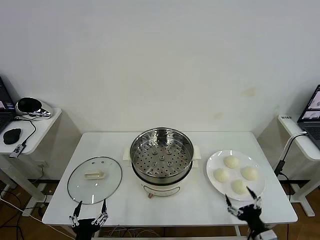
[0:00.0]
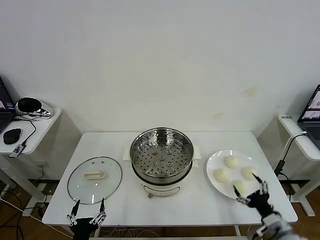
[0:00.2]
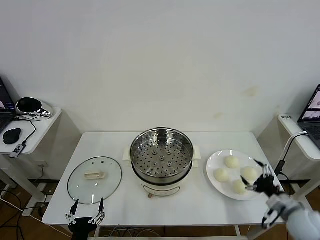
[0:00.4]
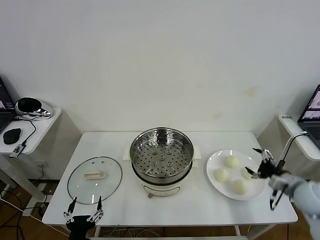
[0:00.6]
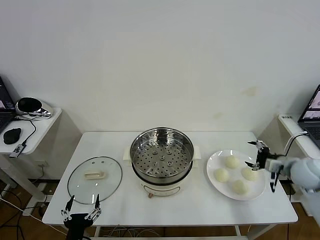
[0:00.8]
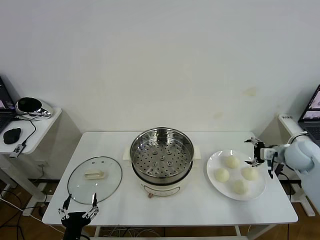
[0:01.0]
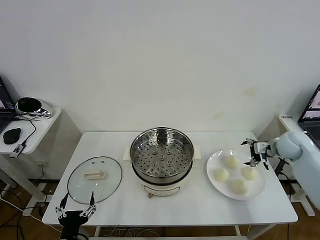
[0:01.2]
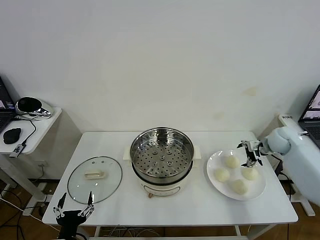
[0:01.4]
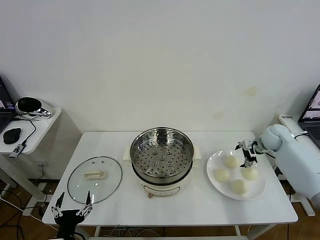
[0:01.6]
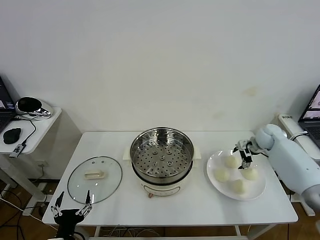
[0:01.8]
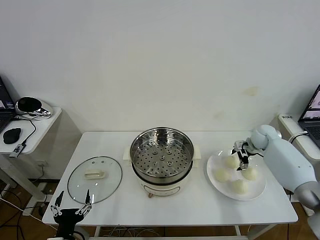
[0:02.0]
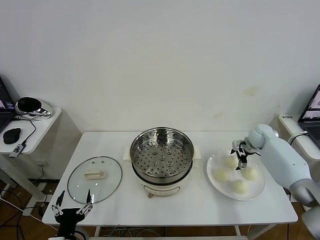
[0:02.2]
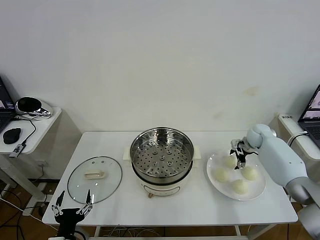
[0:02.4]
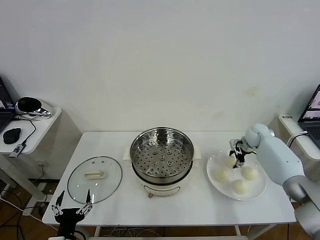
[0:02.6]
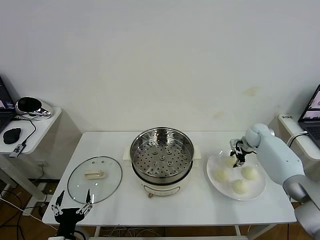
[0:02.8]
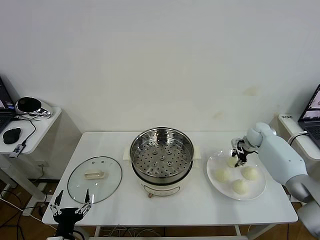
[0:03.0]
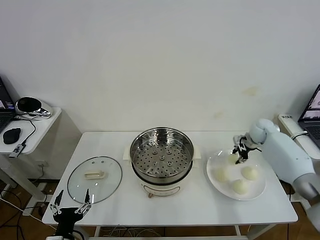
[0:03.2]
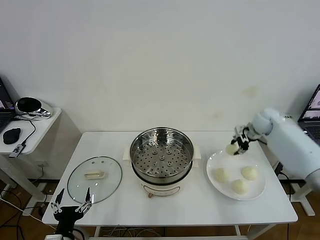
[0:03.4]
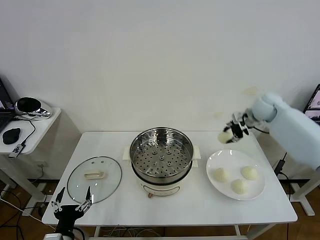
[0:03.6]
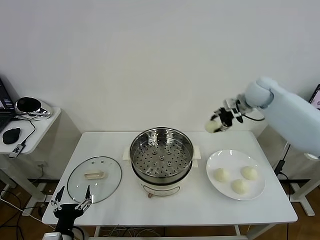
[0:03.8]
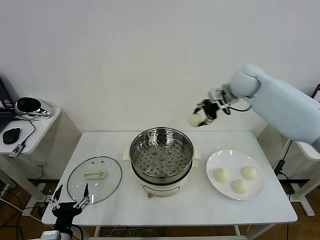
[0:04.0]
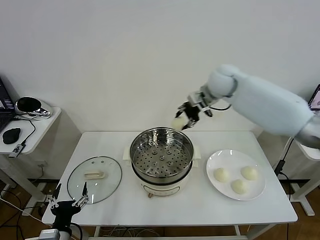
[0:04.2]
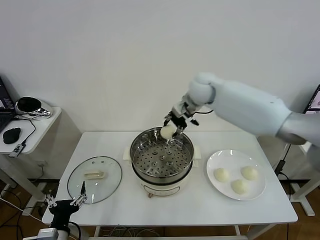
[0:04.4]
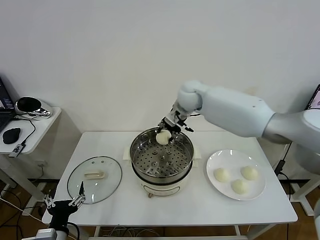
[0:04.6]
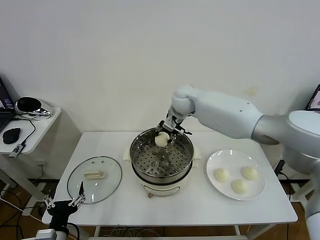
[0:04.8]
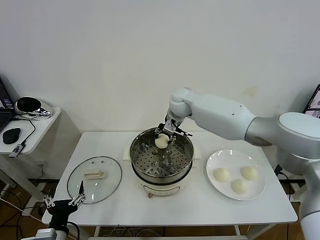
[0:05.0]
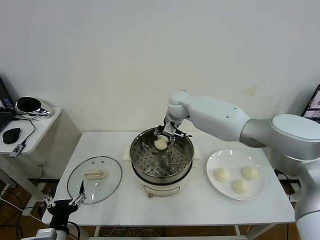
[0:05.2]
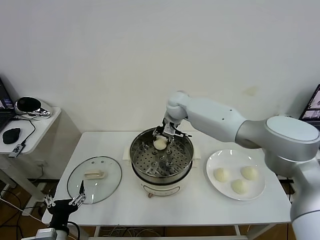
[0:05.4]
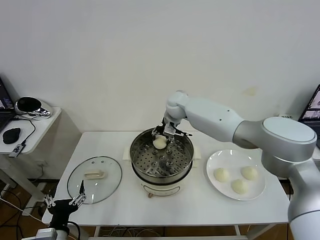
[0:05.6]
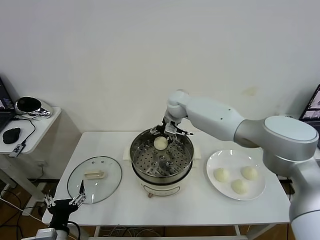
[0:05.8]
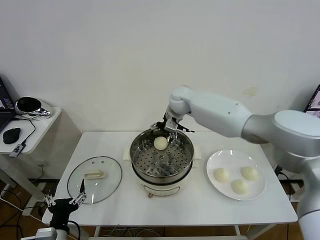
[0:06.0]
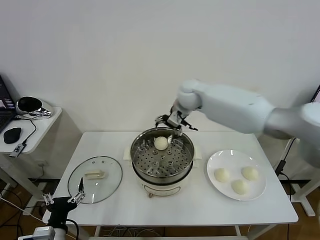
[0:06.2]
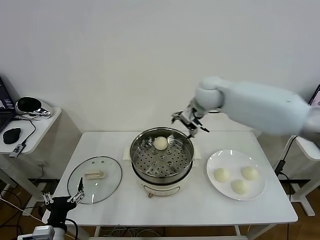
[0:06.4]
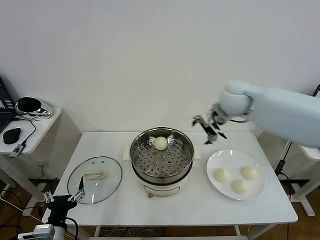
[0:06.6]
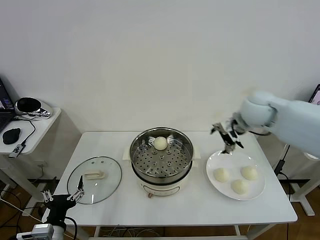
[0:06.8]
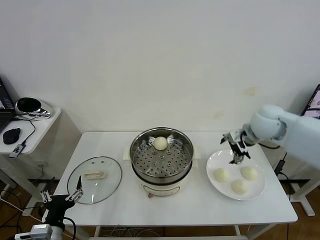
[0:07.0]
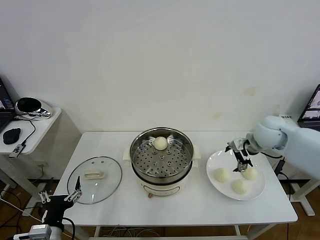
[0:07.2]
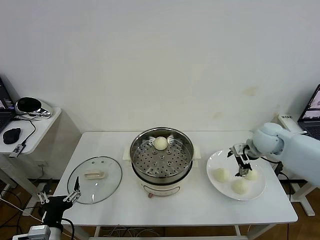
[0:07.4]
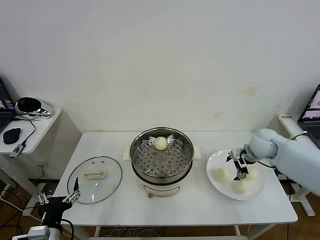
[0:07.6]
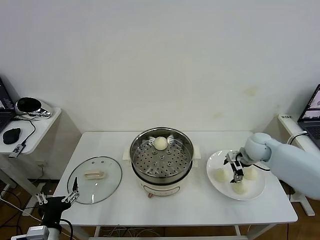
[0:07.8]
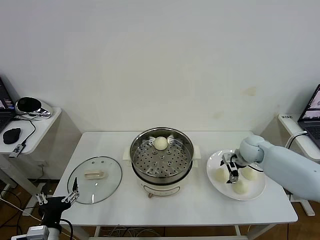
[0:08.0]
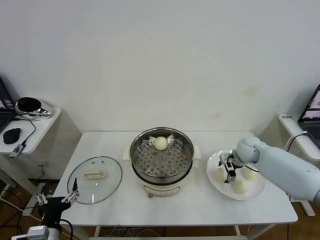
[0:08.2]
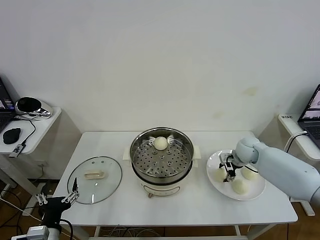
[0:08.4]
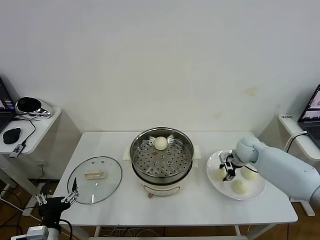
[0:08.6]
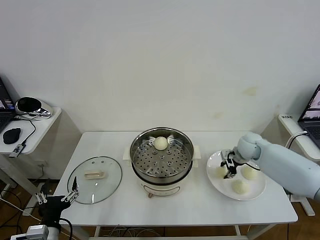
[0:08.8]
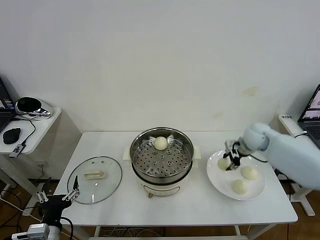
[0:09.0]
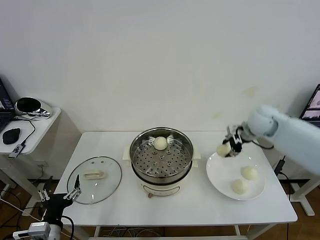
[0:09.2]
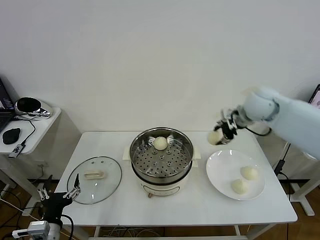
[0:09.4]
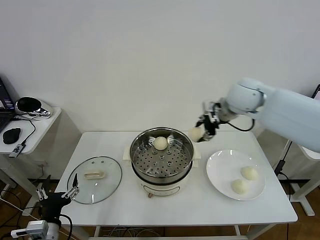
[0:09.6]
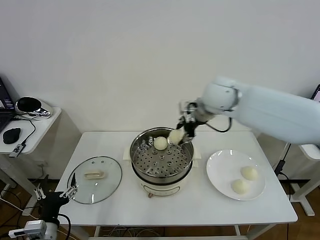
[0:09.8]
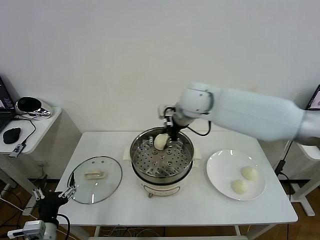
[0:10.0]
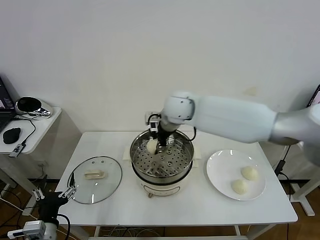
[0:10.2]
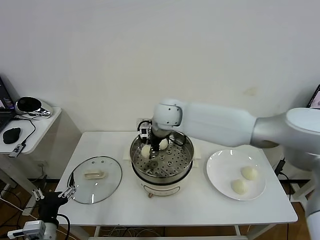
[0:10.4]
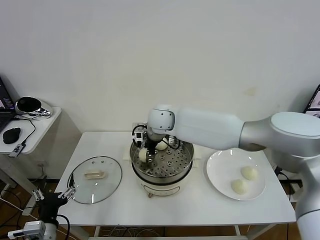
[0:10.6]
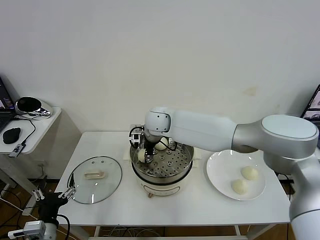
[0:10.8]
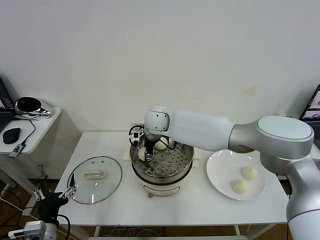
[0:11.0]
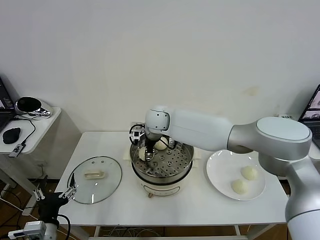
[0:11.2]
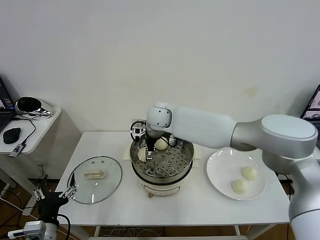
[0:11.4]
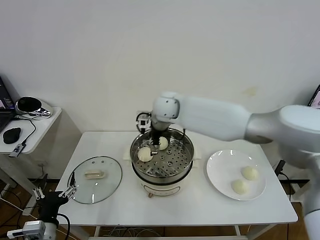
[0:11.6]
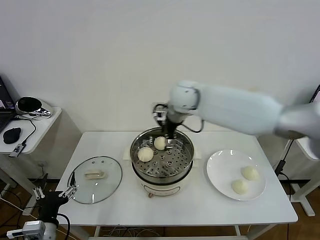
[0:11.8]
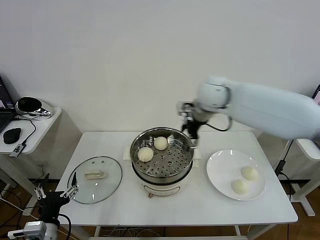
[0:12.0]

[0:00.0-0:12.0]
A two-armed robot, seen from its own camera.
Task of the whole recording: take steamed baozi put them in steamer then cover it.
Step, 0.0 to 2.8 s: Grasp the baozi in the plate with right gripper.
Step, 3.0 to 5.8 s: Place the baozi on the steamer with right gripper.
Step, 6.0 to 8.6 s: Grasp the baozi in the plate with right gripper.
Step, 8.8 to 11.4 s: Place the baozi on the steamer with right gripper.
1.6 to 3.0 s: The right gripper closes up.
3.0 to 4.4 s: The right gripper is displaced to the left and upward by roughly 35 cm.
4.4 to 6.0 s: The right gripper opens its fingers.
6.0 to 7.6 s: The right gripper heads to the right, downward and backward, covering some 30 cm.
7.6 to 9.0 s: The right gripper ends up some 5 cm from where it was, and closes up.
9.0 to 10.4 s: The right gripper is displaced to the left by approximately 35 cm.
10.4 to 12.0 s: The right gripper travels to the right and upward by approximately 20 cm, and opens.

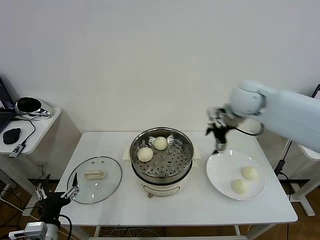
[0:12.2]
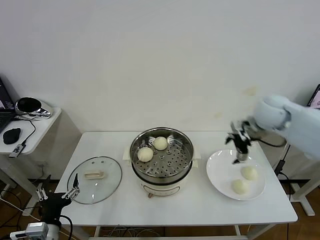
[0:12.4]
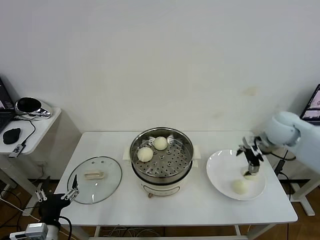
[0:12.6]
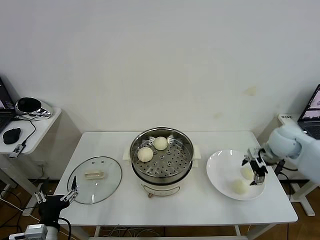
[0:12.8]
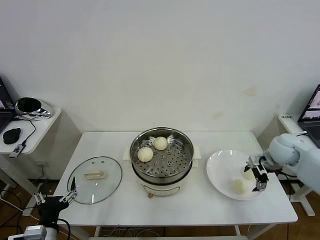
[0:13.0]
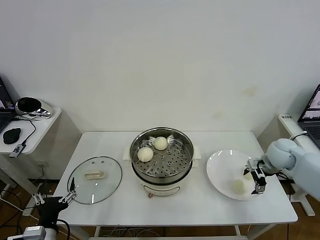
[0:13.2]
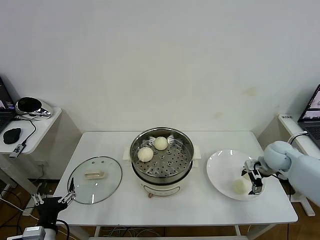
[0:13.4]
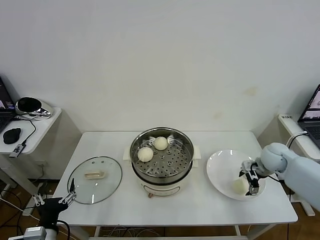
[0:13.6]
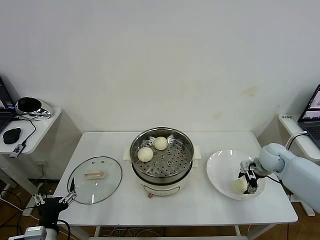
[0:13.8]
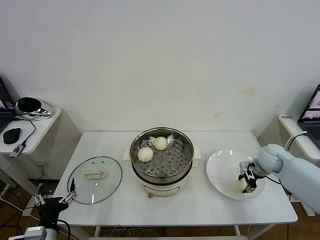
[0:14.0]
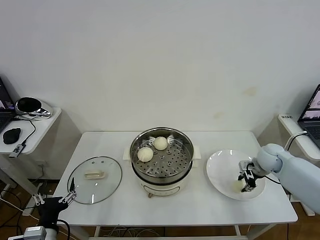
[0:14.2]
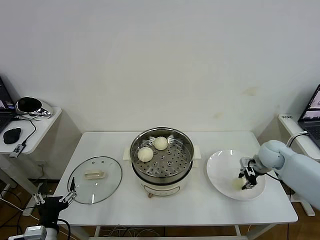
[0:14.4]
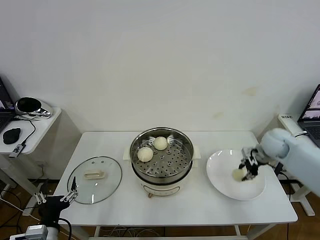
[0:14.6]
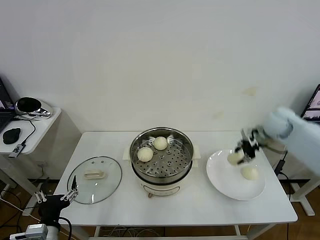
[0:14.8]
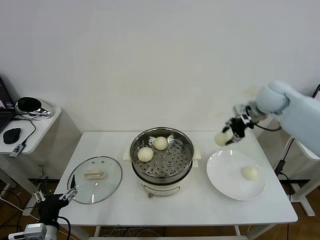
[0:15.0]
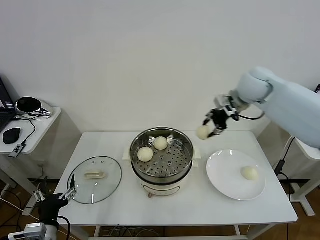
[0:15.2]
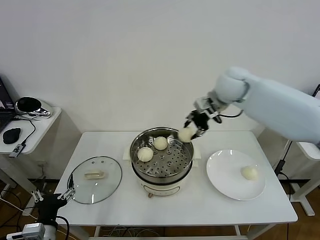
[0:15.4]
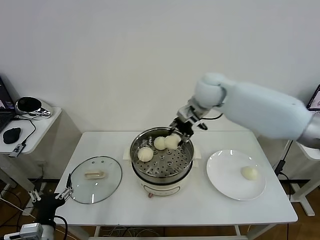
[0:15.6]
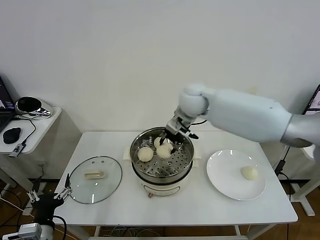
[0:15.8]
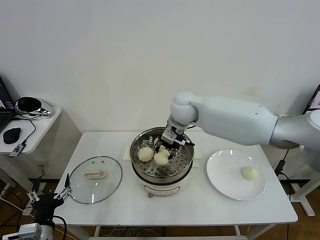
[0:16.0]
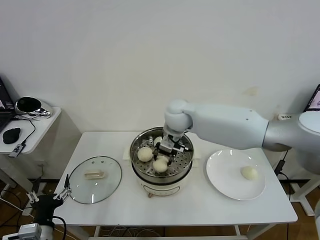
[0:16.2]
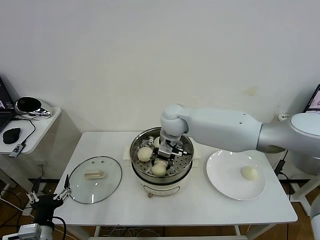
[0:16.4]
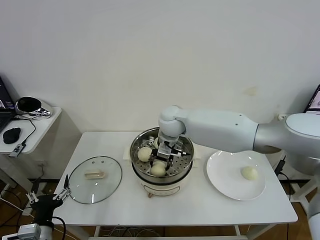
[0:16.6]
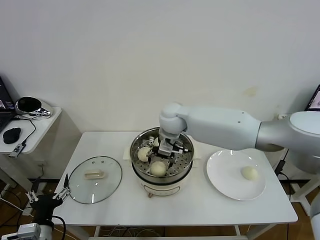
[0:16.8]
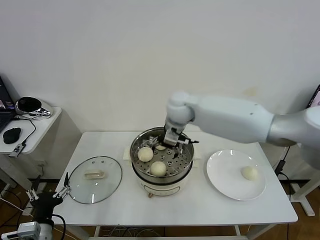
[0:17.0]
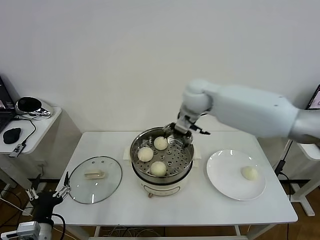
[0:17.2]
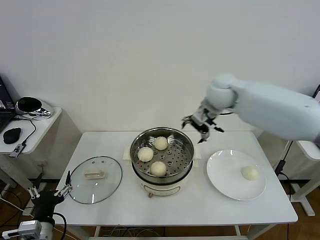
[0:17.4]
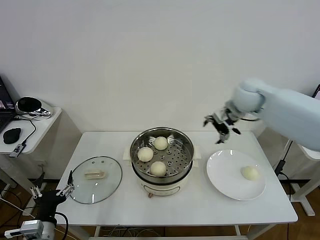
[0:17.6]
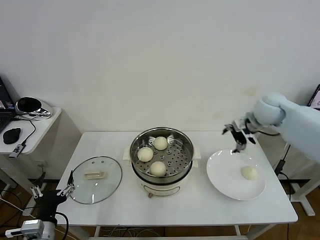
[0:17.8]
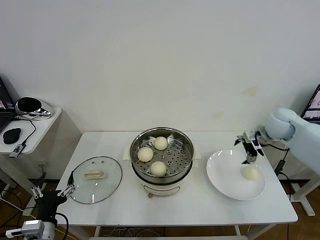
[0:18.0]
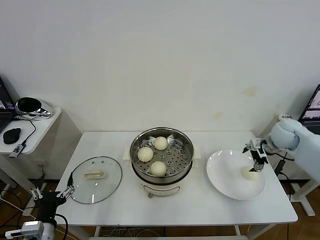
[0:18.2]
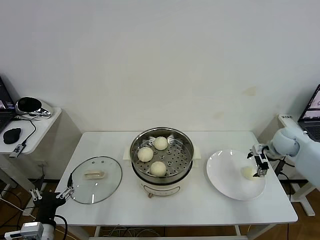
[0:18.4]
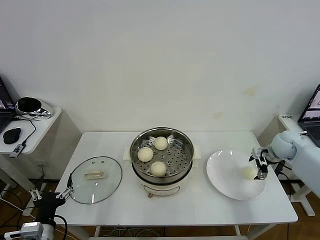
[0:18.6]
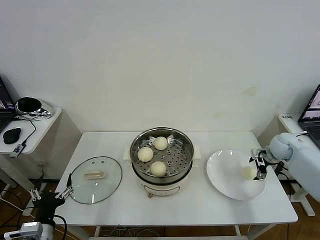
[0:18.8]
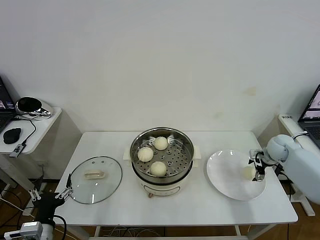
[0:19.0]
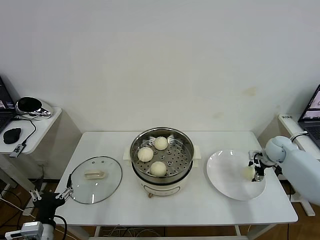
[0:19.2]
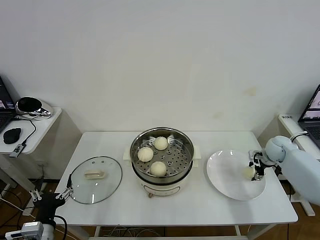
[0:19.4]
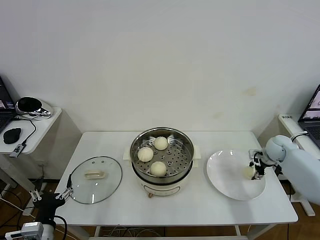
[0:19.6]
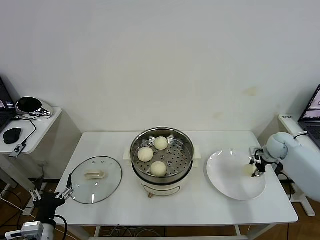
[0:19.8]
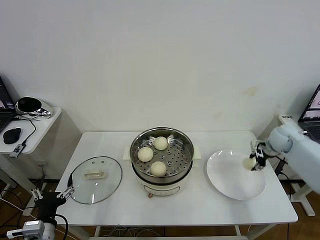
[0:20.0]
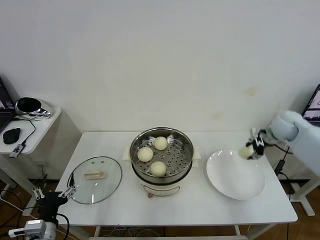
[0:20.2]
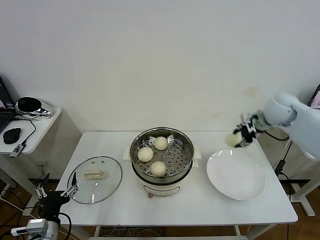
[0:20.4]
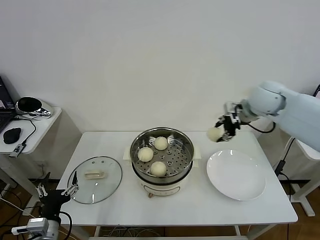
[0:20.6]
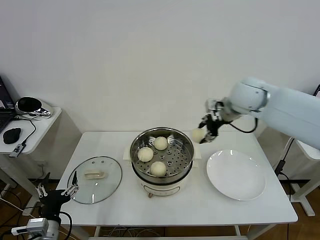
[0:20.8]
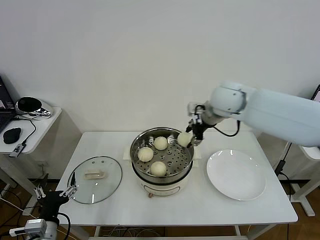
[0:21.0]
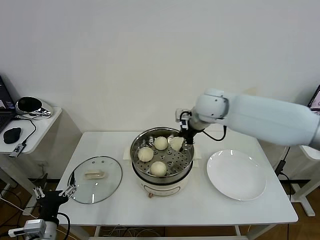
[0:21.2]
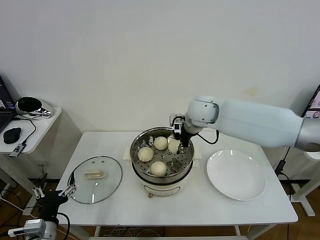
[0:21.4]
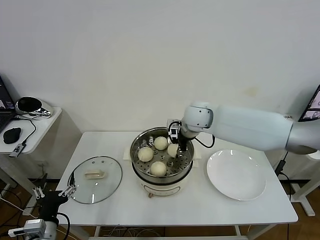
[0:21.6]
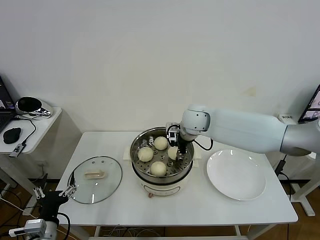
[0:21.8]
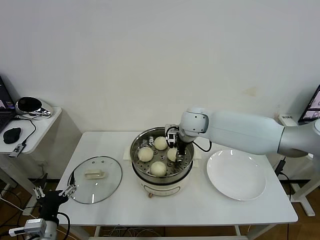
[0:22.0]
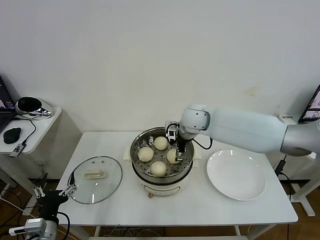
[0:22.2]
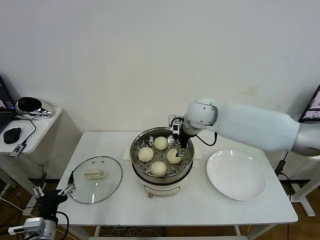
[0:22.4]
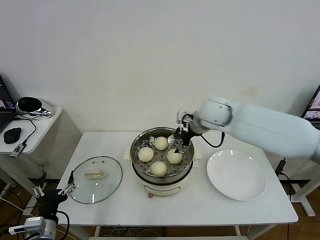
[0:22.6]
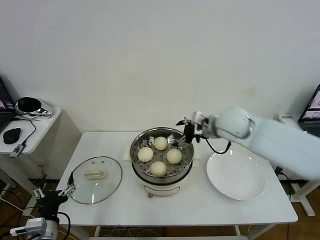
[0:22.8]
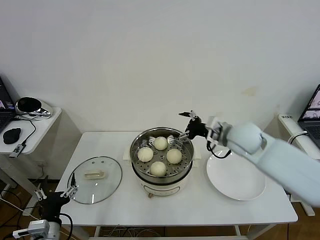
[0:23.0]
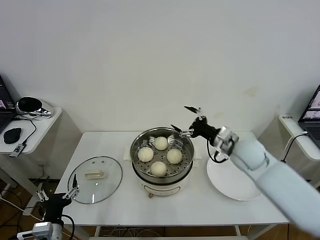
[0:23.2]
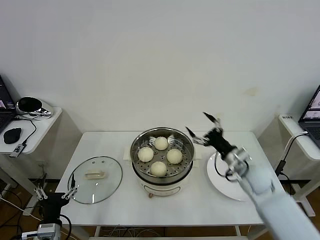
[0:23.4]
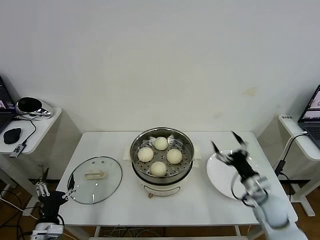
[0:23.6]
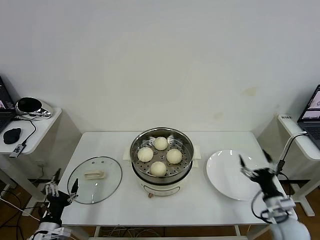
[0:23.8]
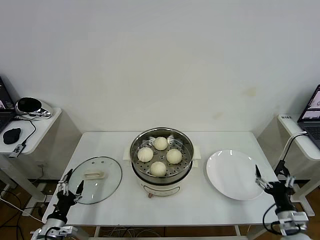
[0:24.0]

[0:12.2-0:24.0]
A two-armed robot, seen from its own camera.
Task of the whole recording: take steamed baozi put them in steamer then cover it.
Step, 12.2 to 14.0 s: Grasp the baozi in the plate with right gripper.
Step, 14.4 to 16.8 s: Place the baozi on the steamer with right gripper.
Step, 17.0 to 19.6 s: Grasp the baozi in the plate with right gripper.
Step, 20.0 to 22.2 s: Place the baozi on the steamer with right gripper.
12.2 to 13.6 s: The right gripper goes about 25 cm downward and to the right.
13.6 to 15.2 s: The right gripper travels upward and to the left by some 30 cm, and closes.
15.2 to 16.6 s: The right gripper goes roughly 25 cm to the left and downward.
16.6 to 18.2 s: The right gripper travels to the right by approximately 40 cm, and opens.
18.2 to 19.6 s: The right gripper travels downward by about 10 cm, and closes up.
19.6 to 21.0 s: The right gripper is displaced to the left and upward by approximately 35 cm.
21.0 to 22.6 s: The right gripper opens.
22.6 to 24.0 s: The right gripper heads backward, downward and to the right, covering about 50 cm. The left gripper moves downward and to the left, some 10 cm.
